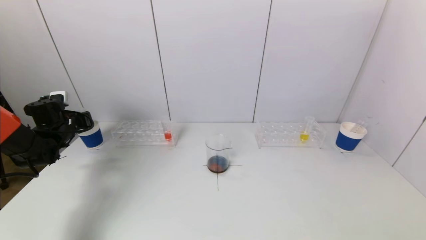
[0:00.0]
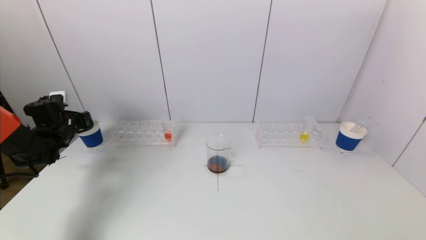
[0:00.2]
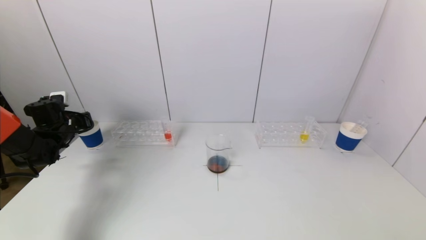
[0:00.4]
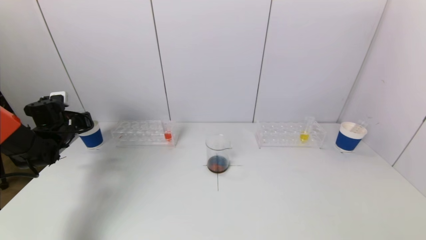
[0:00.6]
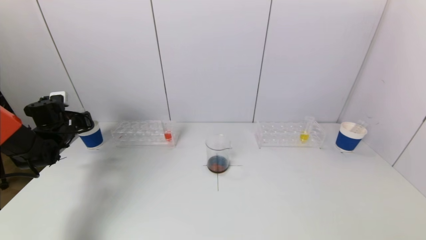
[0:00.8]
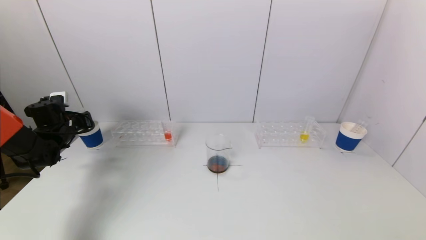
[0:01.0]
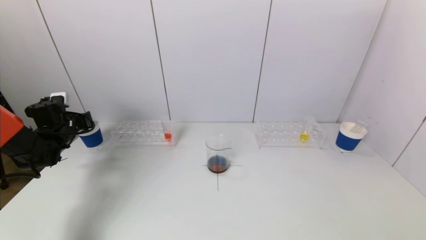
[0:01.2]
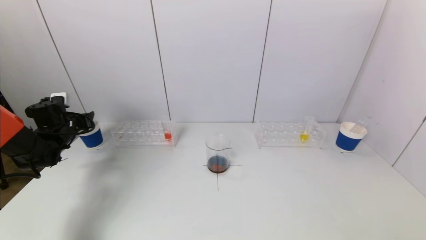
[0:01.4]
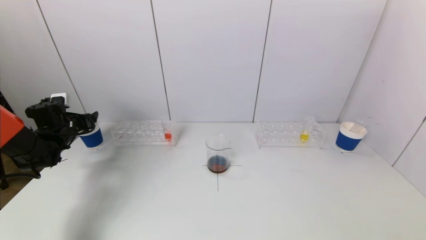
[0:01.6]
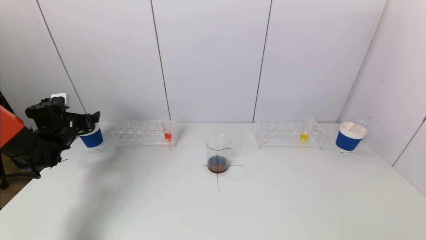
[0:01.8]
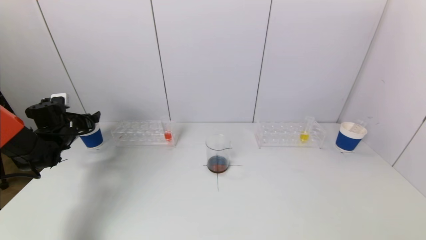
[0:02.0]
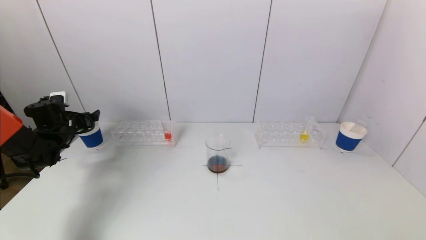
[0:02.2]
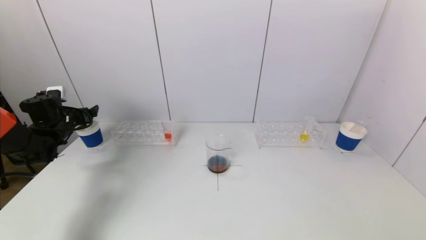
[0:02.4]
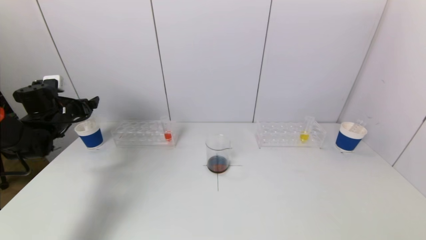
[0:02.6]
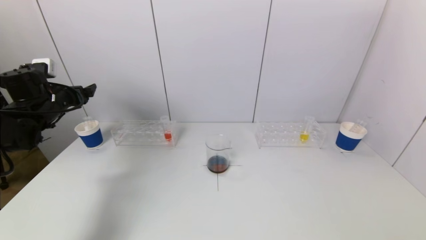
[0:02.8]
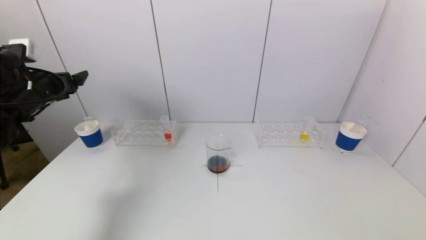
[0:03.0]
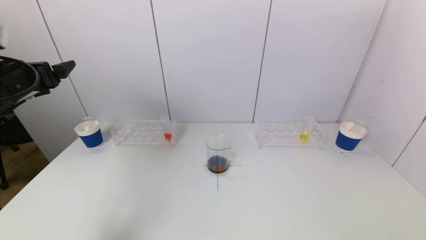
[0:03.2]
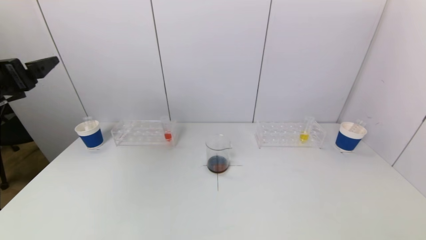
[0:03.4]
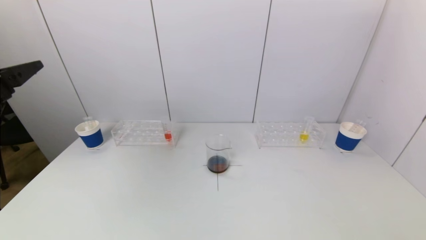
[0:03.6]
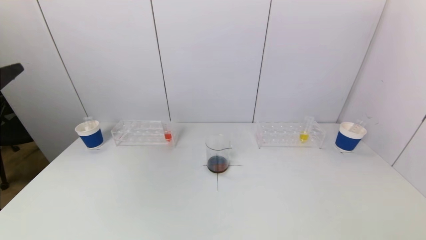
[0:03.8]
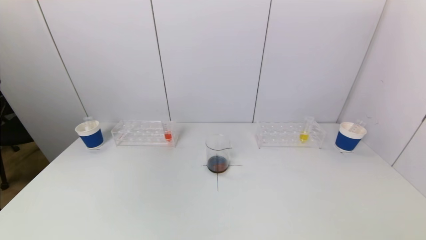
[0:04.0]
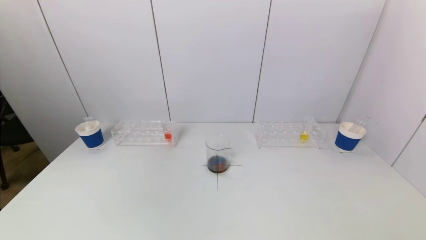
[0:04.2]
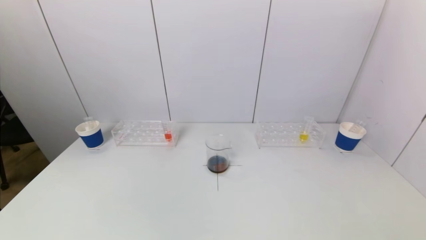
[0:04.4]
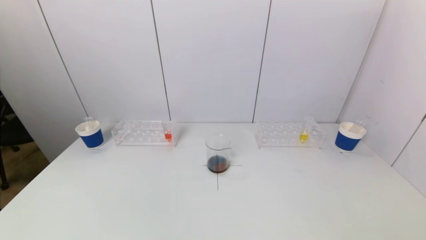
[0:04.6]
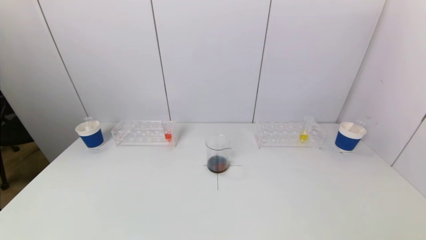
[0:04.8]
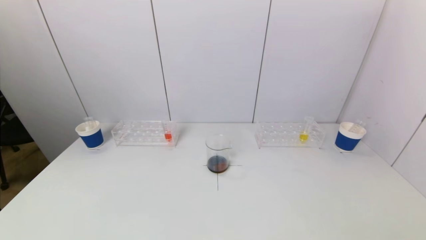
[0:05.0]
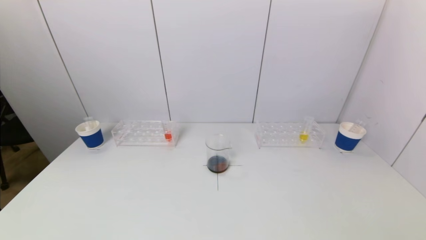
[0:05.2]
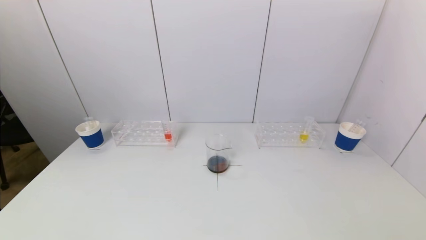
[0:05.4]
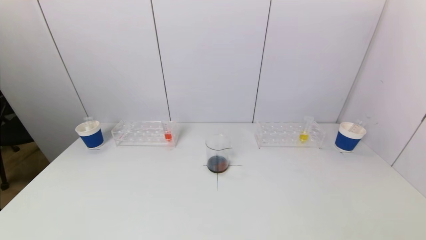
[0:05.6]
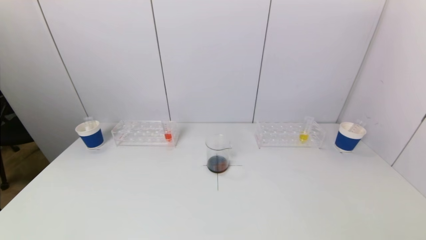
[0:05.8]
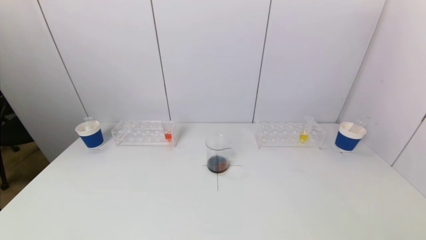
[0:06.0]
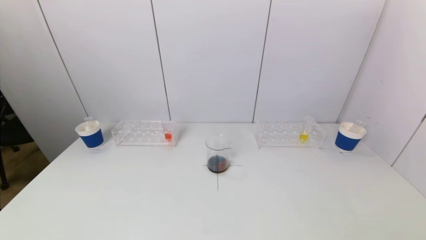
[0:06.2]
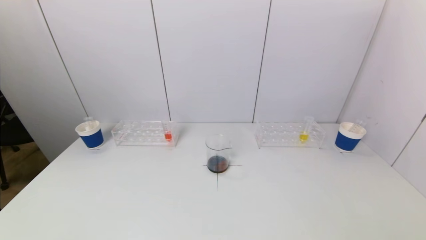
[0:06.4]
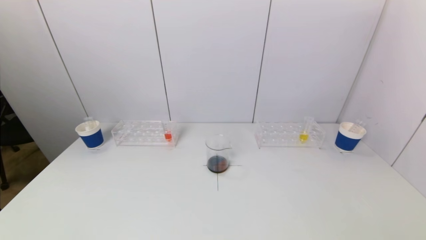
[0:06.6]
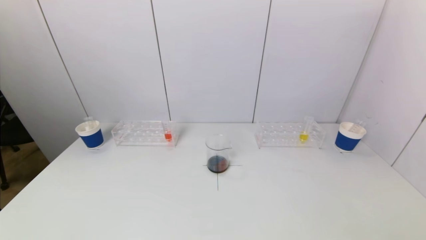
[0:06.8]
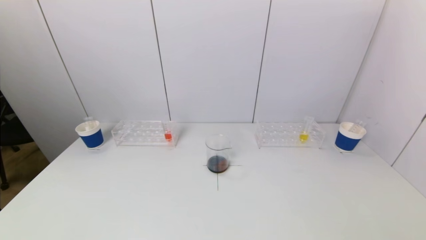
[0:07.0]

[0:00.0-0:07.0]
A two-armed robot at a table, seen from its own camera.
Task of the whole recording: pick up a test tube with pigment on left test tube rack and a test tube with pigment on right test tube rack by grippers and pour them into the beaker.
0:00.0 to 0:01.4: The left gripper opens up.
0:01.4 to 0:02.8: The left gripper shifts some 10 cm upward, and opens its fingers.
0:02.8 to 0:04.2: The left gripper shifts some 35 cm backward.
0:05.6 to 0:07.0: Both grippers stay put.

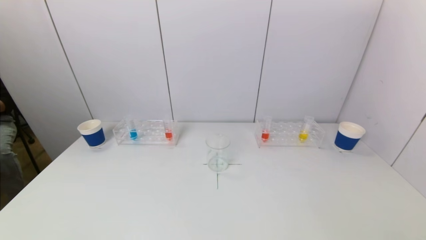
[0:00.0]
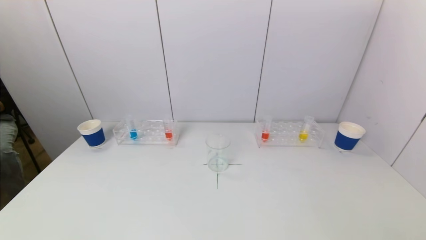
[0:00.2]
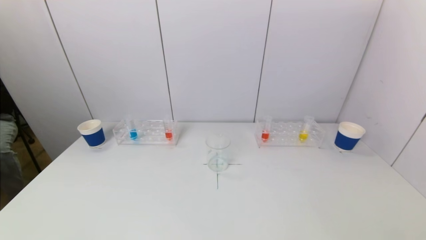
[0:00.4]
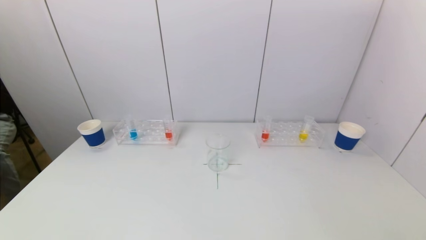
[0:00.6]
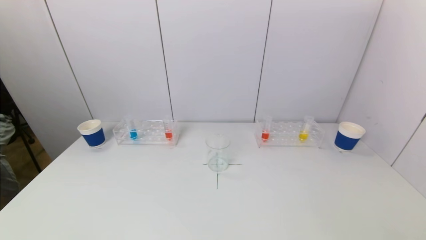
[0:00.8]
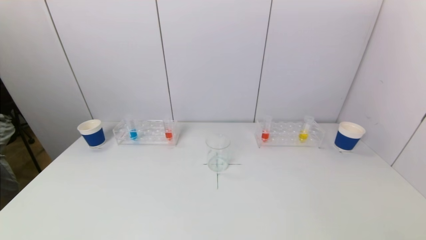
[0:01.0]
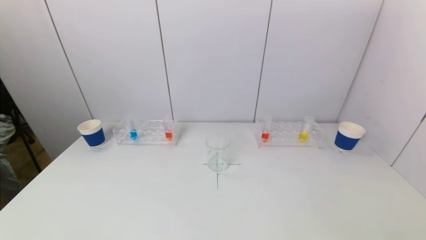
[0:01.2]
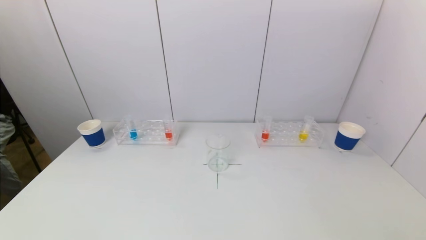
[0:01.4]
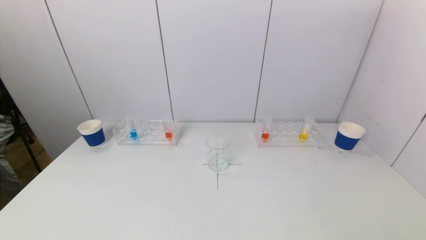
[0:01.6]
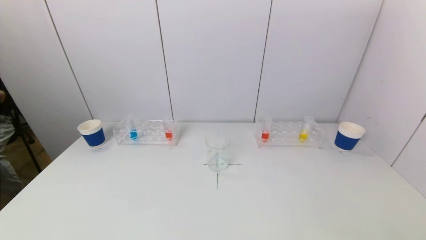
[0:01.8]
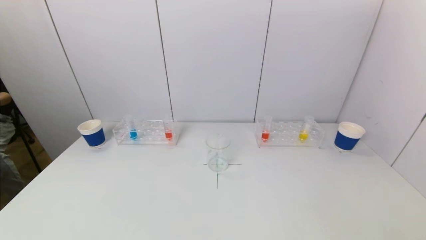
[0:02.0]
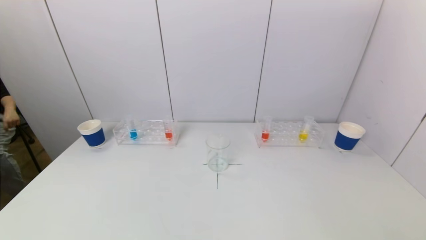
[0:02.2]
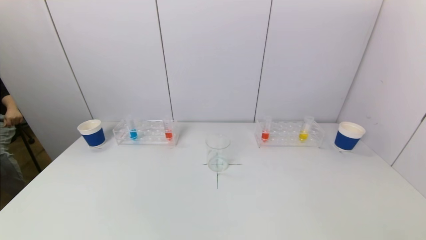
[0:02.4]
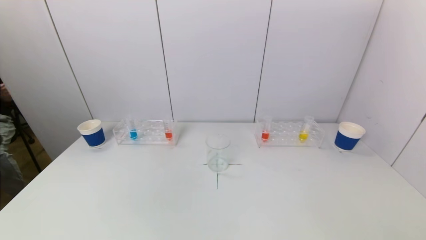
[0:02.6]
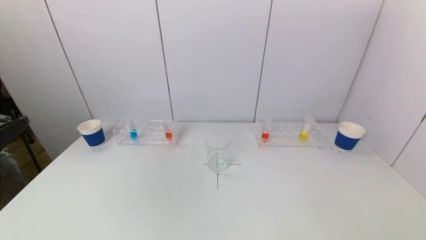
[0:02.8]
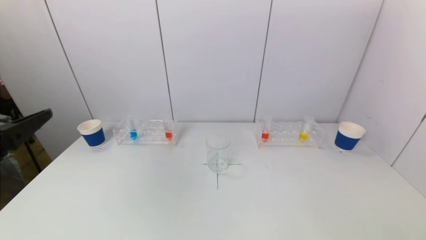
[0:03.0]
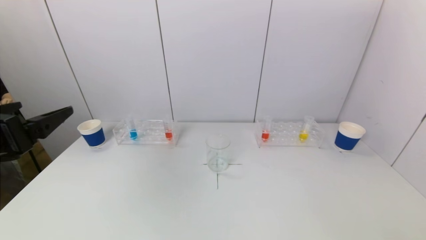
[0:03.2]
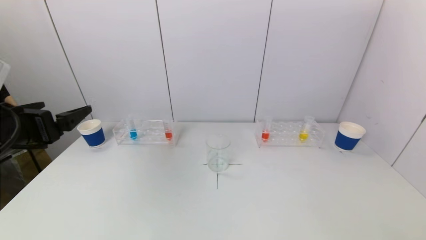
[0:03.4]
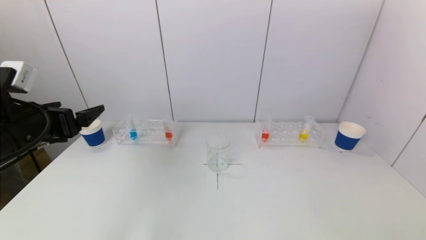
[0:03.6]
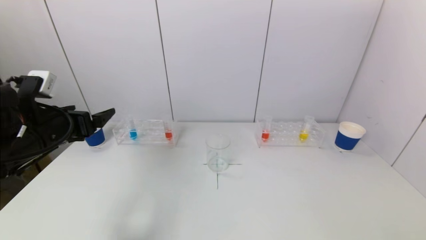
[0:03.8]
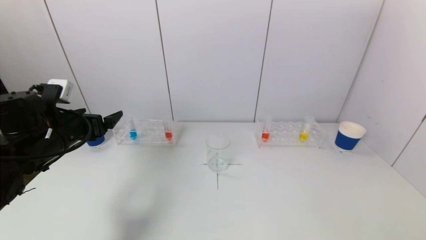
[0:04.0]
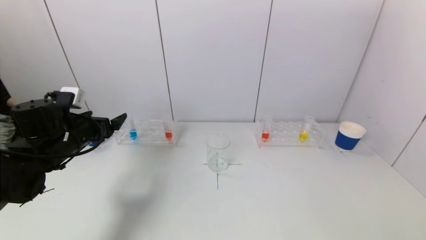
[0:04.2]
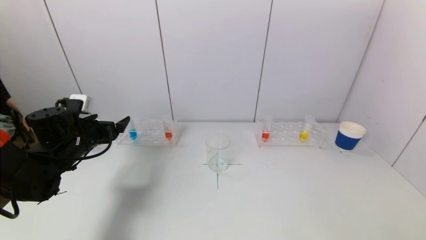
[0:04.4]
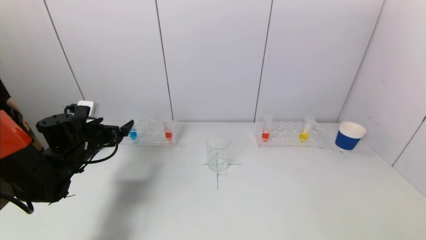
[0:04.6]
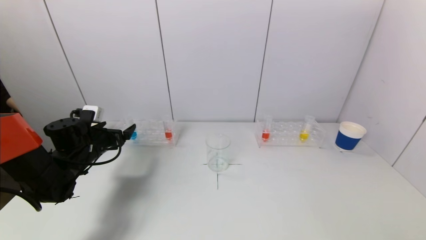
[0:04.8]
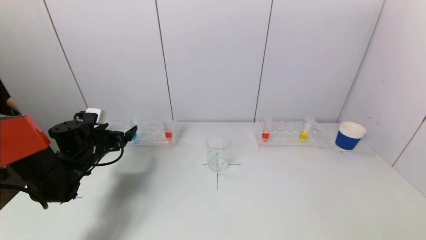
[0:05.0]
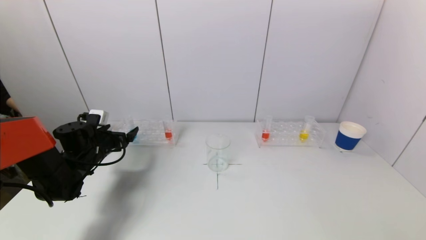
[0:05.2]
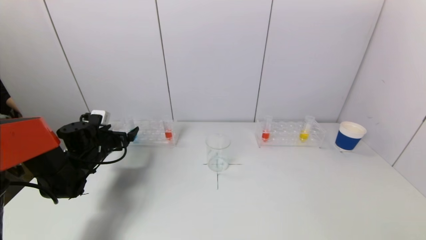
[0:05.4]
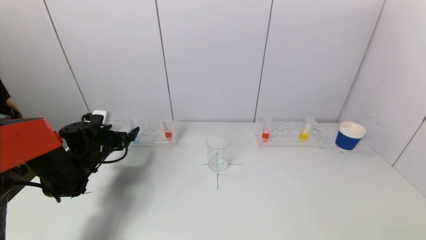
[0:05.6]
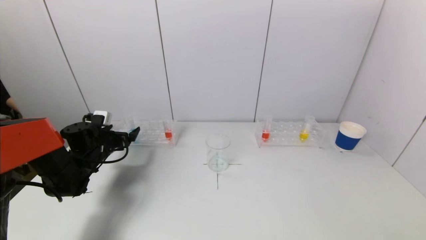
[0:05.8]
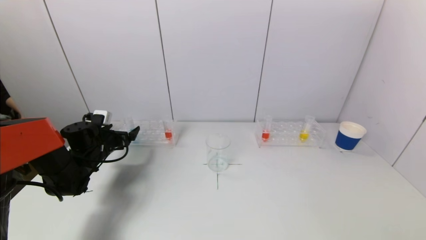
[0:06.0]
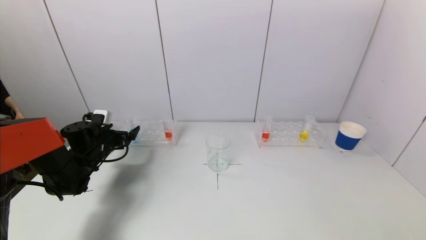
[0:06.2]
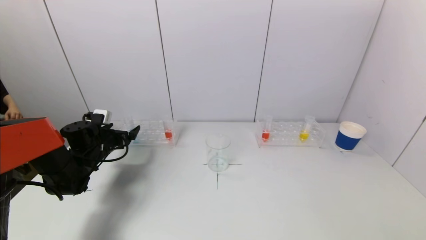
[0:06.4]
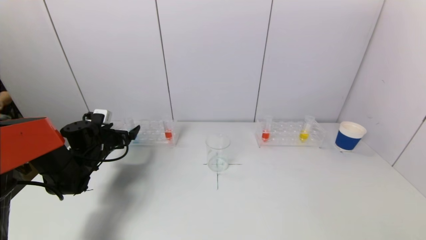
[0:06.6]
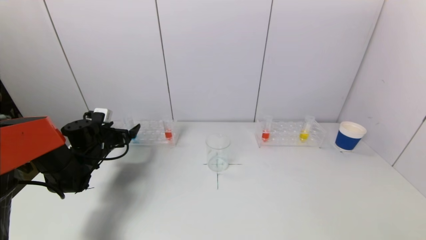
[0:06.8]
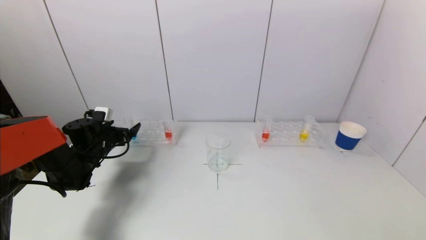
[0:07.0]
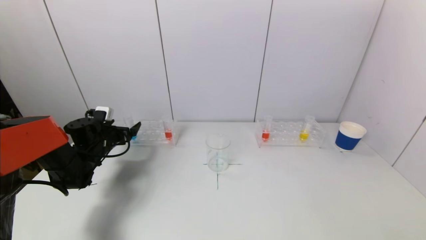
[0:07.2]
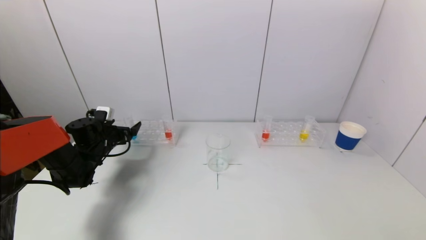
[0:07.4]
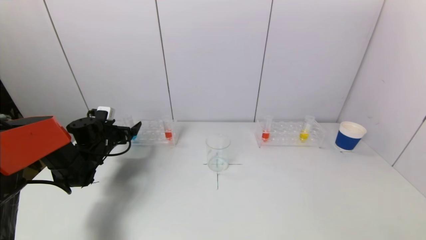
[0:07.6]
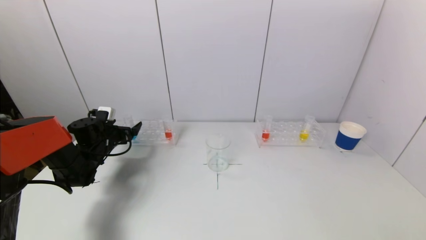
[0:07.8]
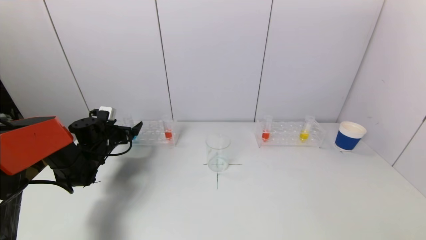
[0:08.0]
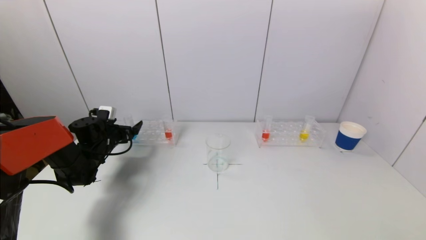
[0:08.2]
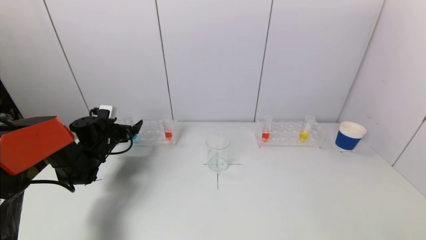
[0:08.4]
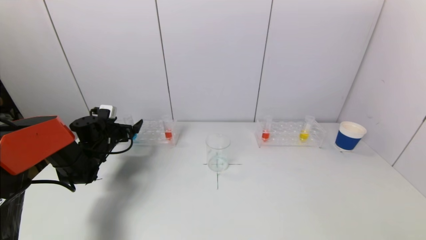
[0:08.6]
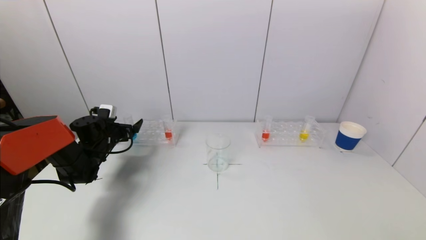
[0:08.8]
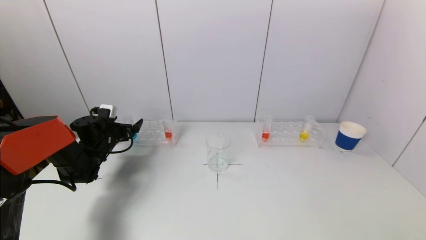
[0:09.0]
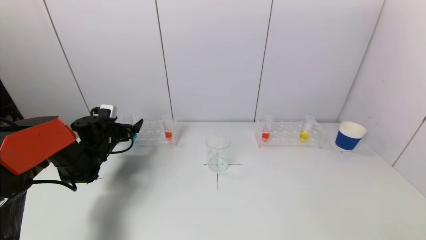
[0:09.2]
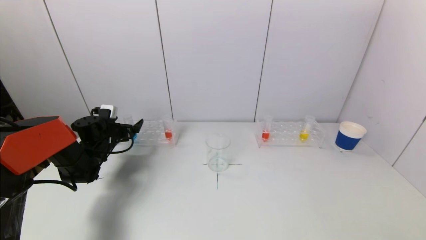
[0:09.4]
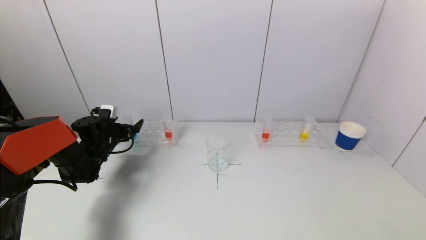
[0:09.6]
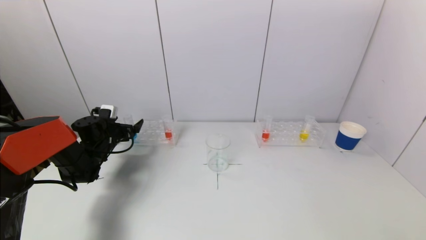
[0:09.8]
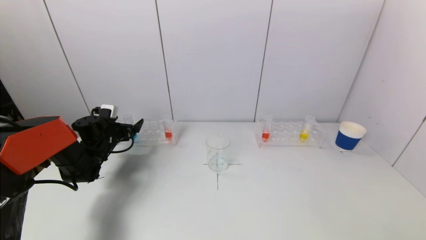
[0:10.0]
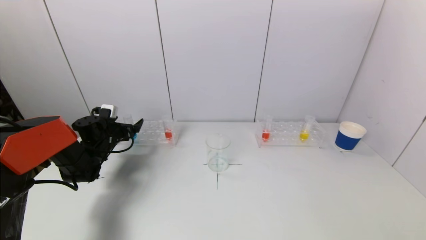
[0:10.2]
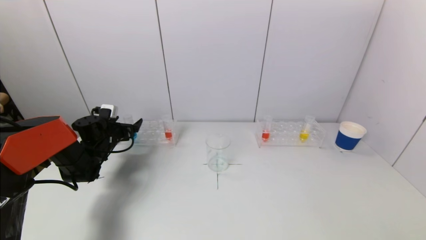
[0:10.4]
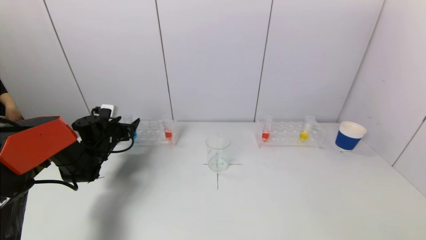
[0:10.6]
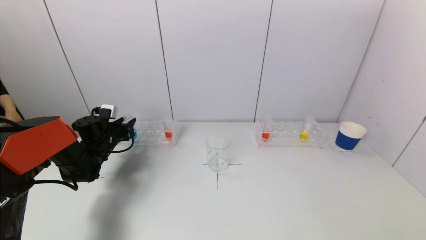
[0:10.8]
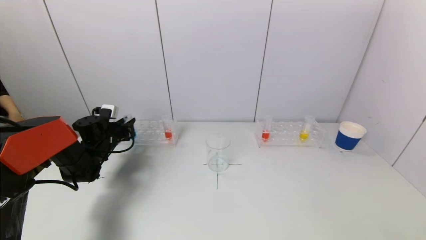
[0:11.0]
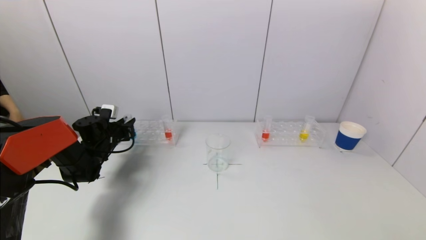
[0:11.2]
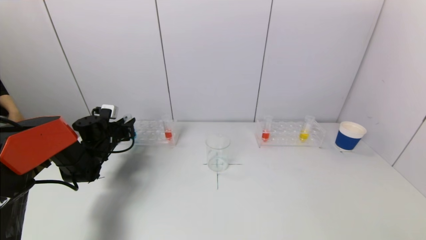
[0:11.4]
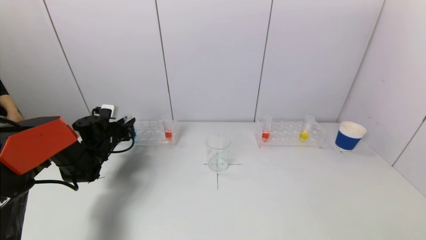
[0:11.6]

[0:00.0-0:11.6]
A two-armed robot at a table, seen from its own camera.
Task of the whole recording: pick up a test tube with pigment on left test tube rack and a test tube with pigment on right test tube rack by grippers and pour them into the beaker.
Step, 0:00.0 to 0:11.0: Grasp the blue reagent with the left gripper.
0:02.8 to 0:04.4: The left gripper heads forward and downward, covering some 30 cm.
0:04.4 to 0:05.8: The left gripper goes about 10 cm downward and forward.
0:05.8 to 0:08.8: The grippers make only small movements.
0:08.8 to 0:10.2: Both grippers stay about where they are.
0:10.2 to 0:11.6: The left gripper closes.
